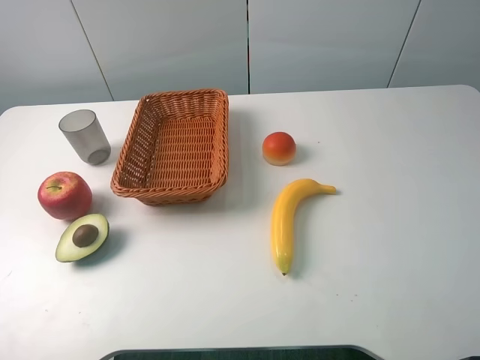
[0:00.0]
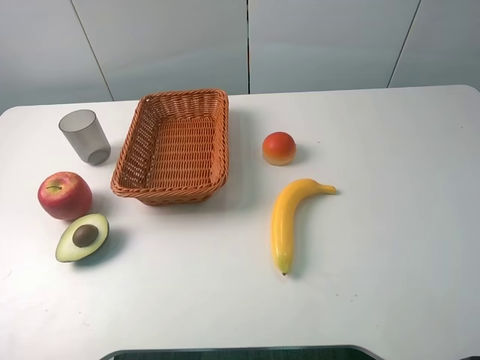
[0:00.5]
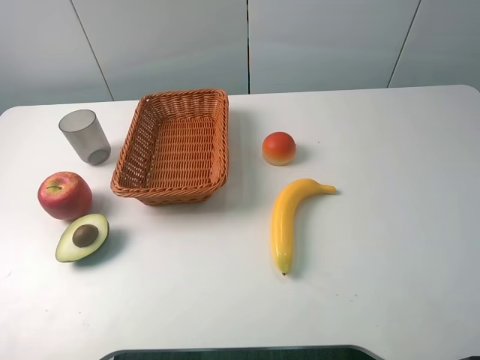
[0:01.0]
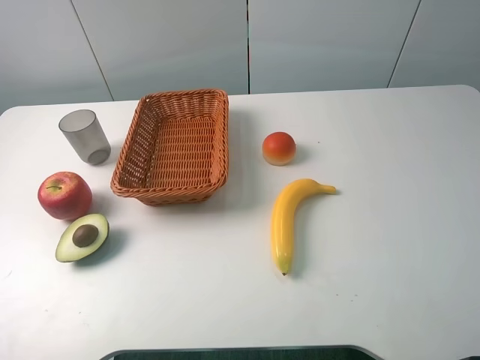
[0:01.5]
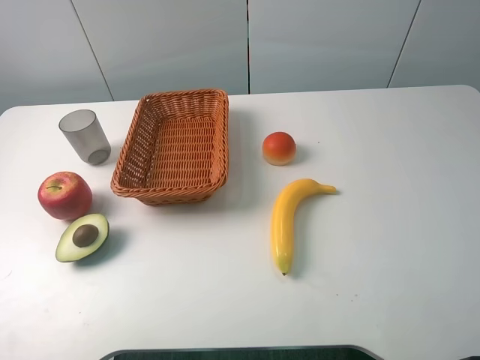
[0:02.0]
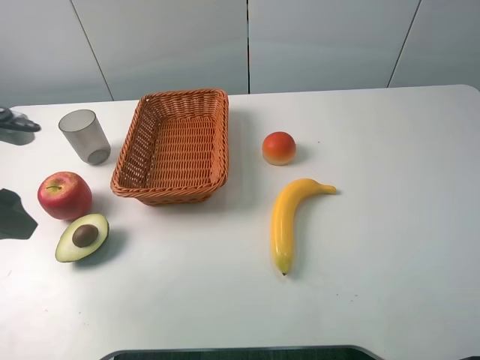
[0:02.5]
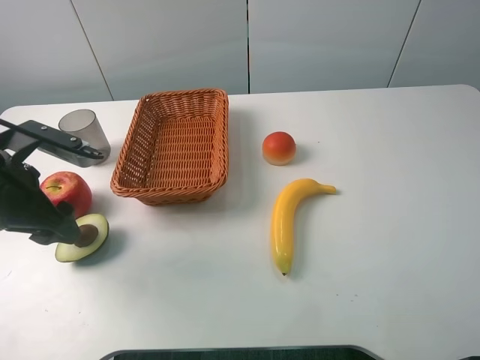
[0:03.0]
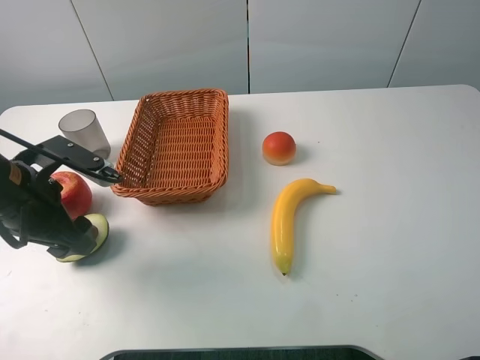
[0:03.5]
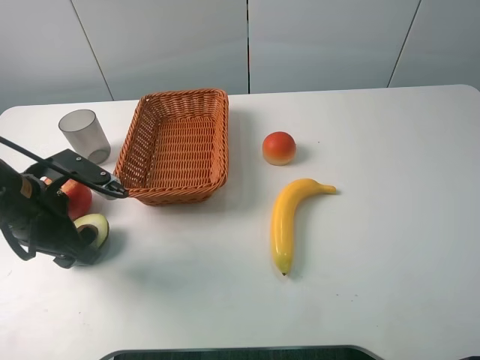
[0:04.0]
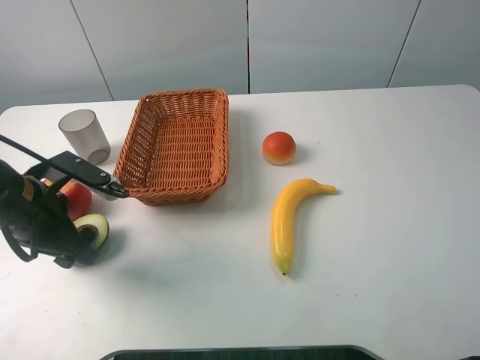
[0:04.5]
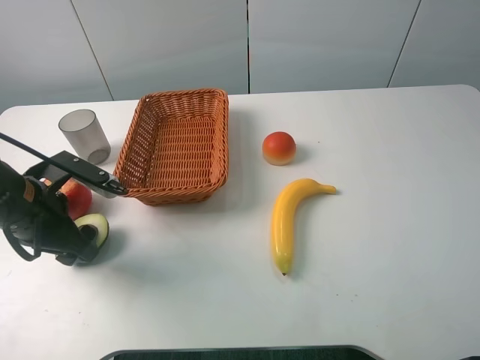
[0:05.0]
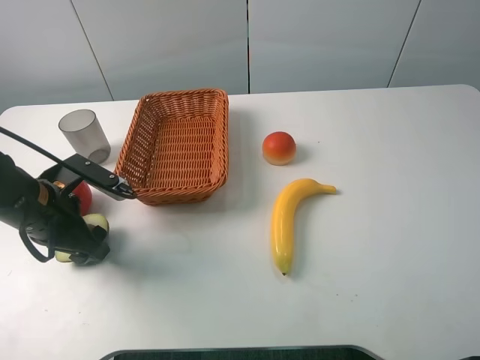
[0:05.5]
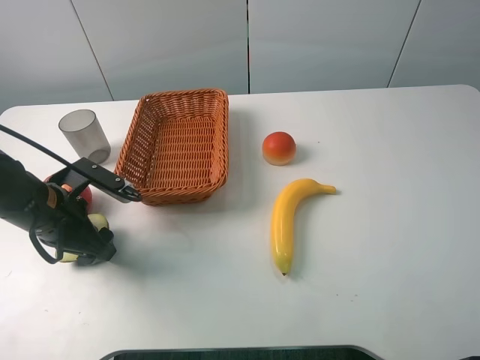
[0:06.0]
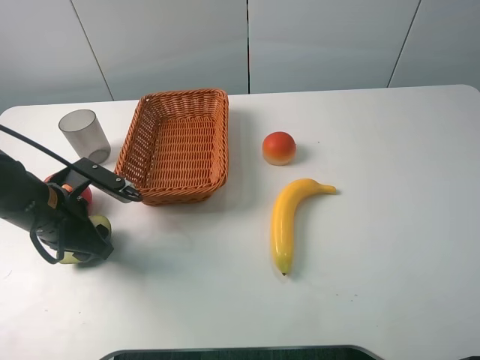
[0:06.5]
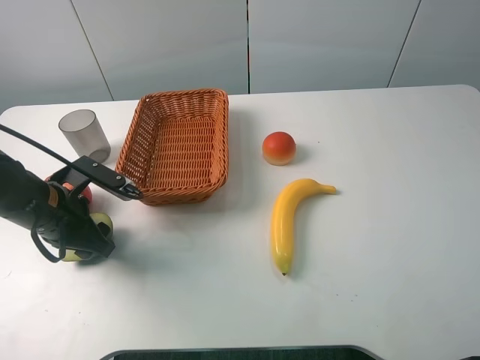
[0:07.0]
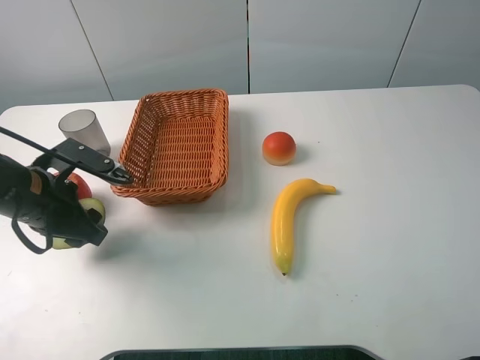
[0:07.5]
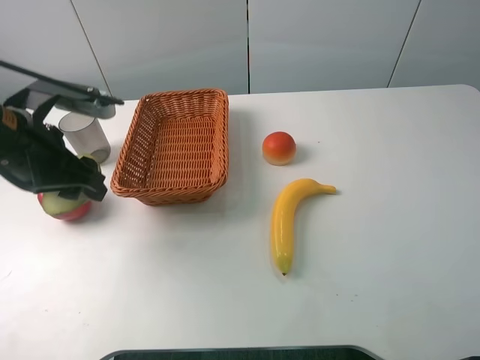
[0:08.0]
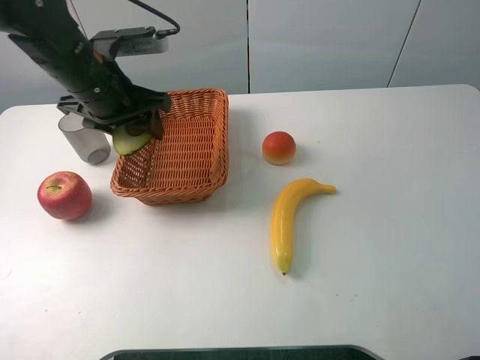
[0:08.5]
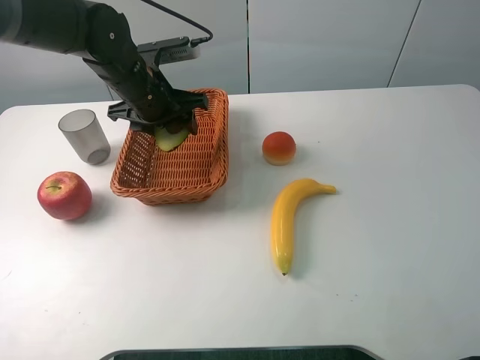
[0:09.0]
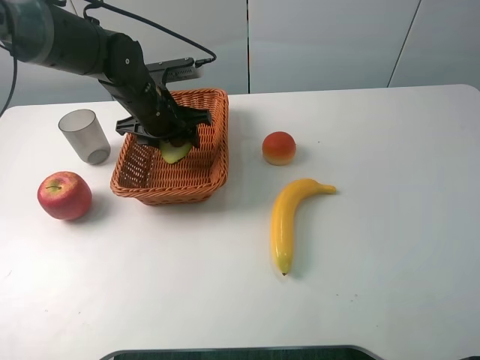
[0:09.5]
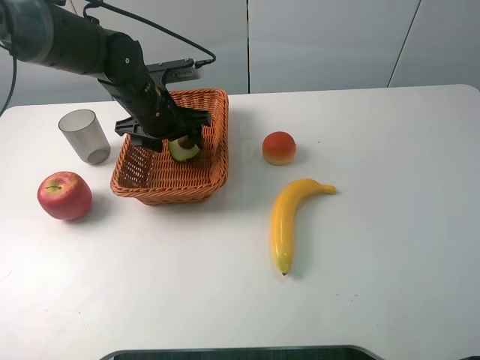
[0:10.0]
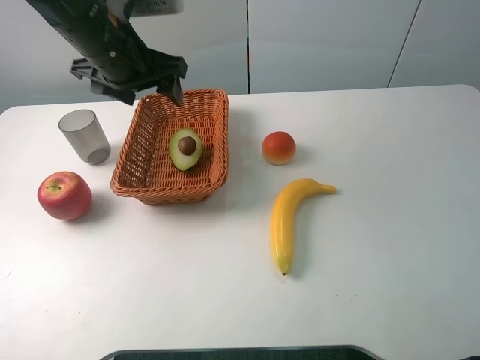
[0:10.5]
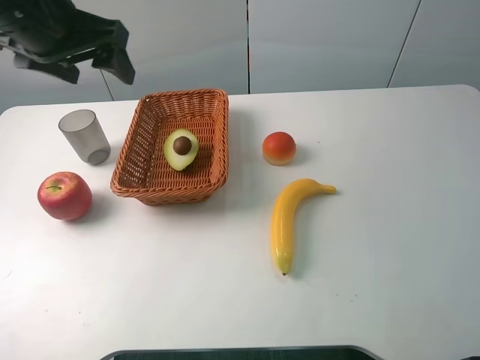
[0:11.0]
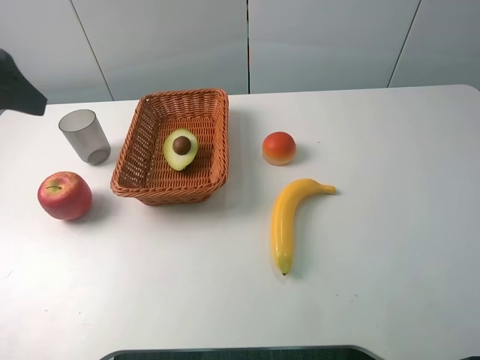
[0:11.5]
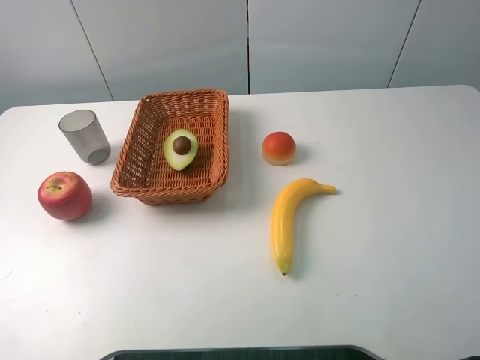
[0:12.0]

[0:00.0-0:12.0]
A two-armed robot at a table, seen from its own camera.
0:02.0 to 0:04.0: The left gripper shifts about 25 cm forward and downward.
0:04.0 to 0:06.0: The grippers make only small movements.
0:06.0 to 0:08.0: The left gripper is displaced upward by about 10 cm, and closes up.
0:08.0 to 0:10.0: The left gripper shifts about 20 cm forward, to the right and downward, and opens its fingers.
0:10.0 to 0:12.0: The left gripper moves backward, upward and to the left, some 35 cm.

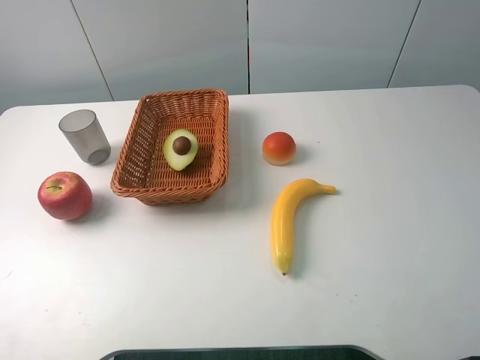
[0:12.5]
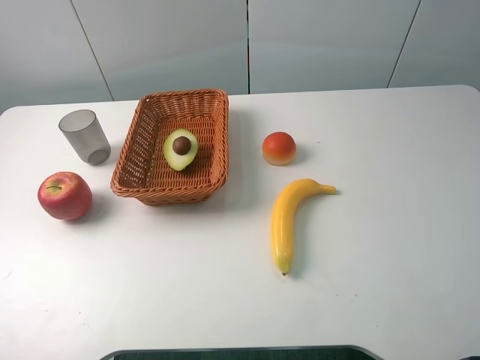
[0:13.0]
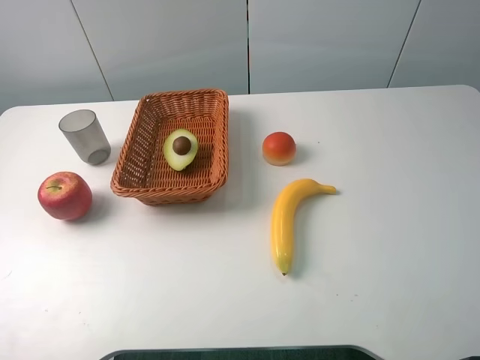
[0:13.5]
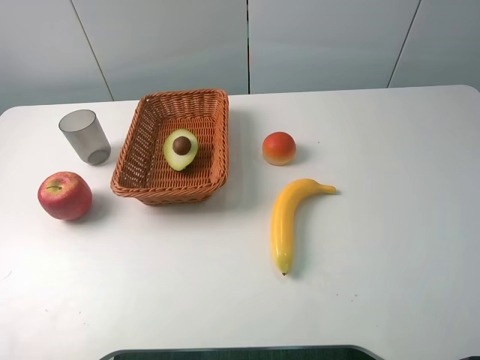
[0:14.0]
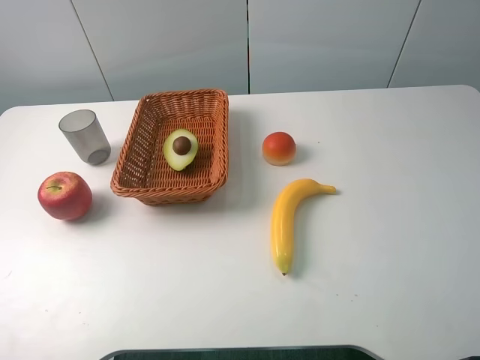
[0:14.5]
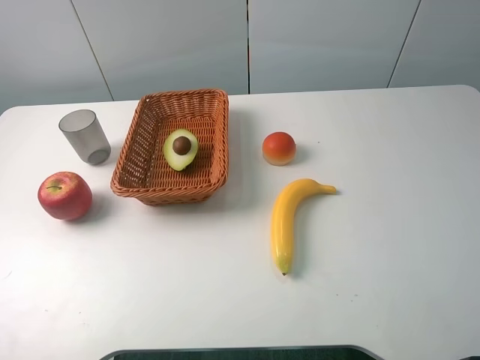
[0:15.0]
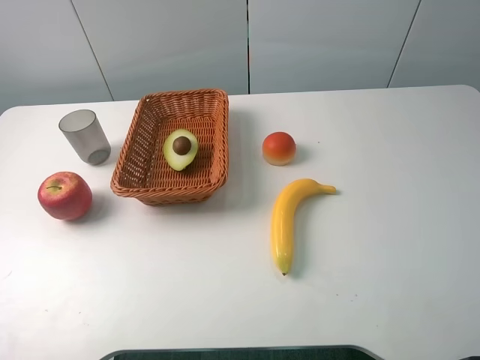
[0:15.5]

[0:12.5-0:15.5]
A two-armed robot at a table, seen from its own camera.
0:14.0 to 0:15.5: Neither gripper changes place.
